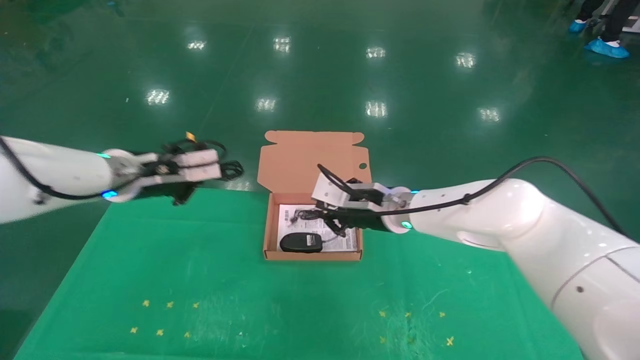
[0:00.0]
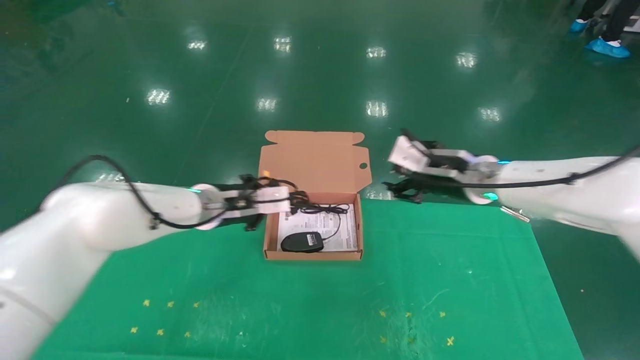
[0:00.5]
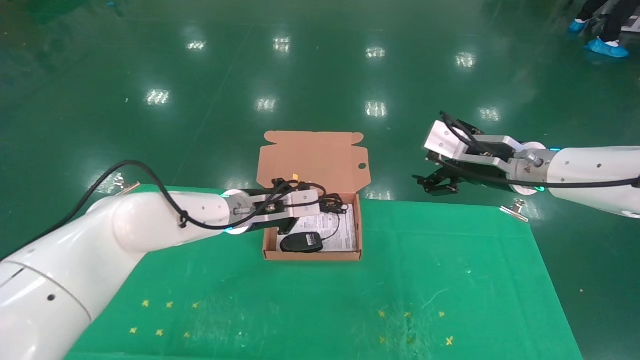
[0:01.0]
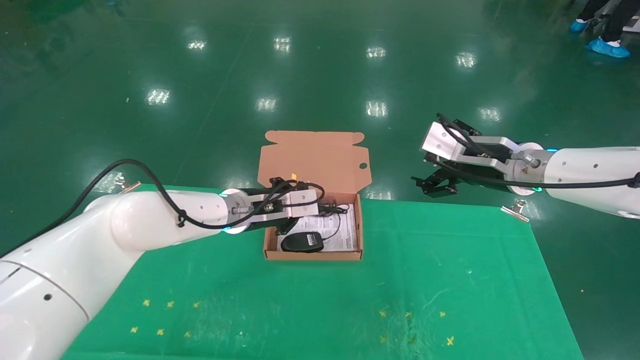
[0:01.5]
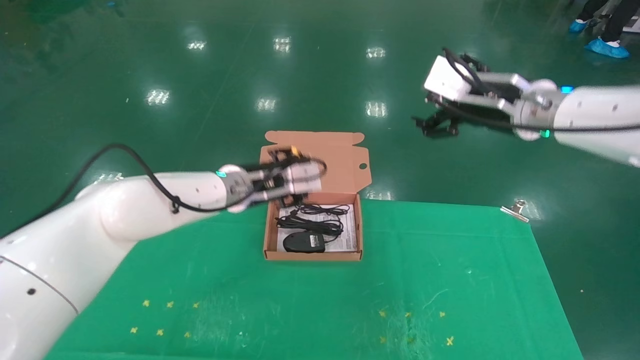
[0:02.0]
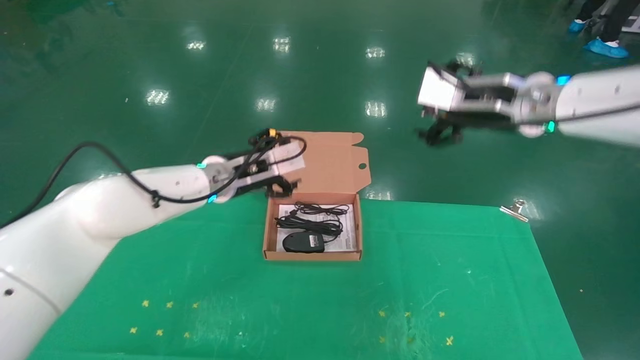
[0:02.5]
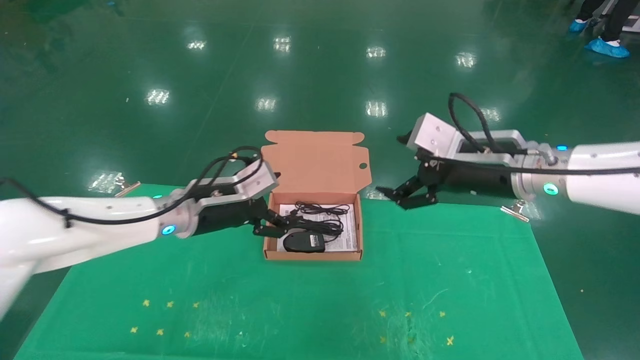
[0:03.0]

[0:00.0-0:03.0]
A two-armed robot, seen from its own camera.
Task of the whole recording: grasp data cable left put into box grasp mouse right put into box.
Step, 0:00.0 to 0:02.0: Place the mouse and power cord into the box.
0:00.0 to 0:01.5: The left gripper moves to the right and downward, about 15 cm. Meanwhile the right gripper goes about 15 cm to the right and upward, and opens its fingers.
0:01.5 to 0:03.0: The left gripper moves to the left, roughly 5 cm, and opens. Meanwhile the right gripper travels upward and back again, some 10 cm each way.
